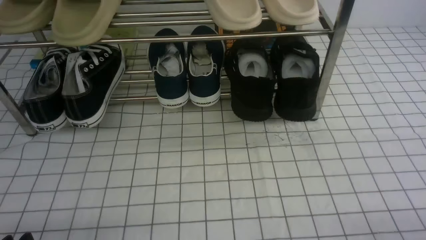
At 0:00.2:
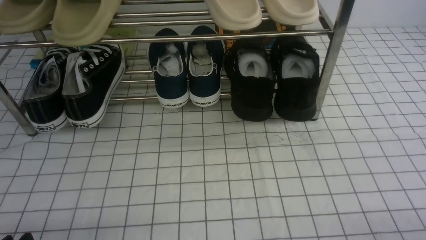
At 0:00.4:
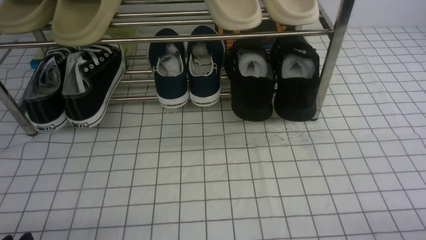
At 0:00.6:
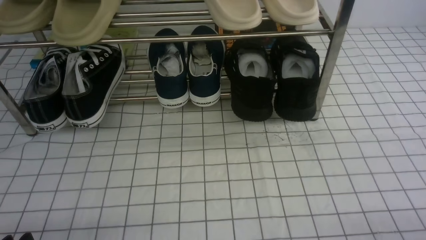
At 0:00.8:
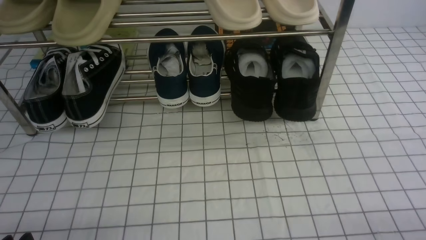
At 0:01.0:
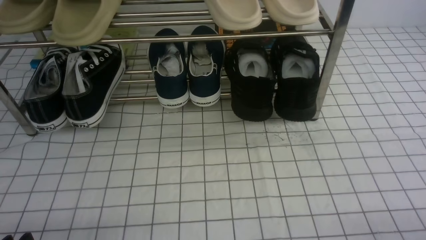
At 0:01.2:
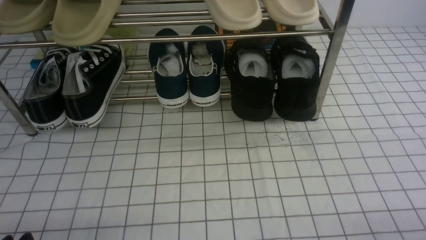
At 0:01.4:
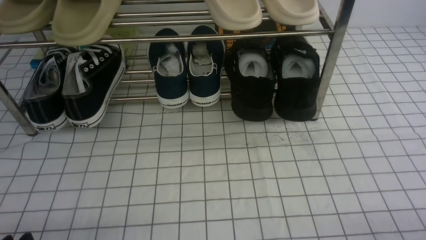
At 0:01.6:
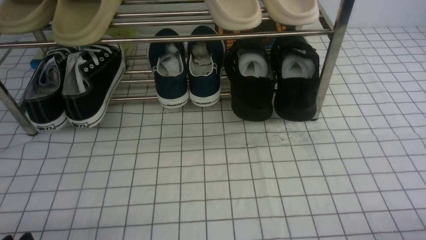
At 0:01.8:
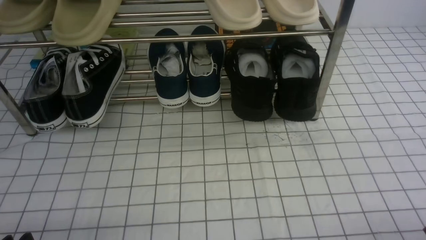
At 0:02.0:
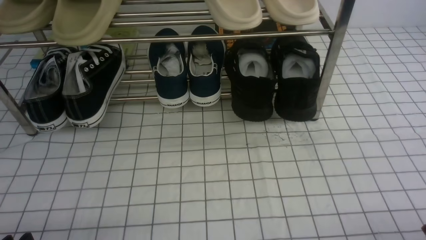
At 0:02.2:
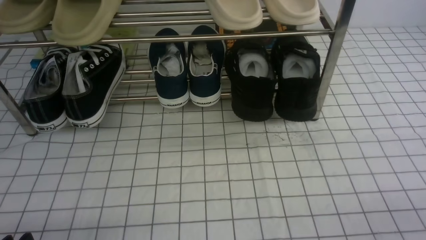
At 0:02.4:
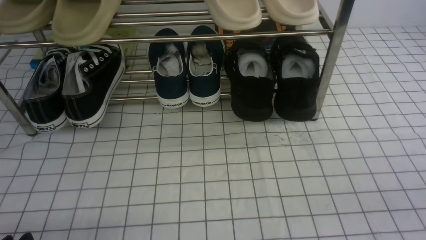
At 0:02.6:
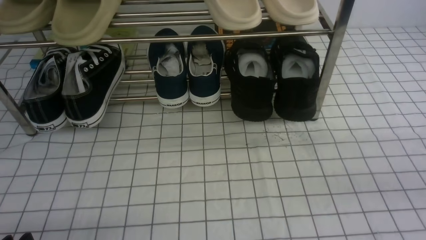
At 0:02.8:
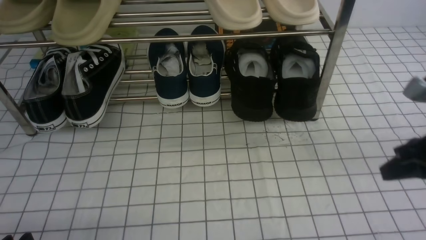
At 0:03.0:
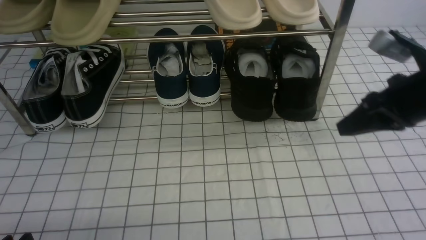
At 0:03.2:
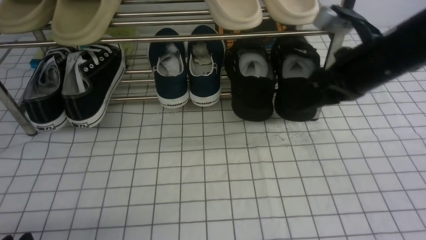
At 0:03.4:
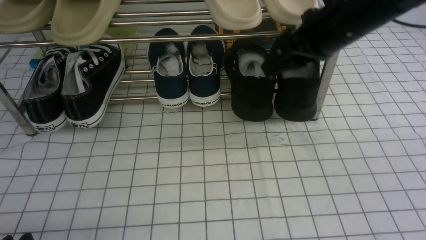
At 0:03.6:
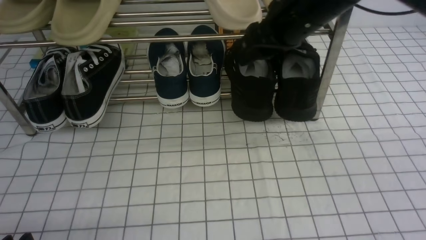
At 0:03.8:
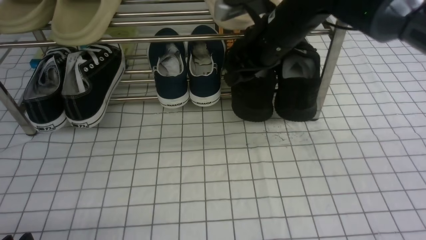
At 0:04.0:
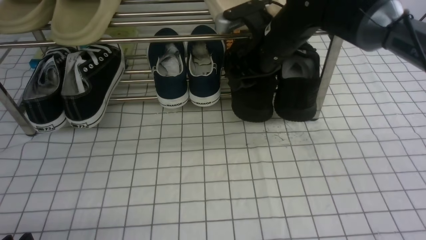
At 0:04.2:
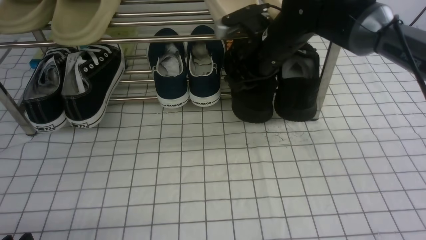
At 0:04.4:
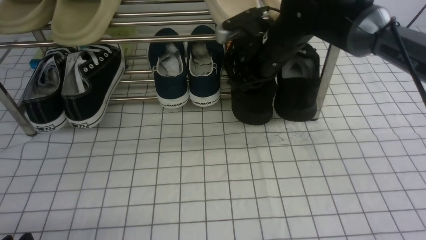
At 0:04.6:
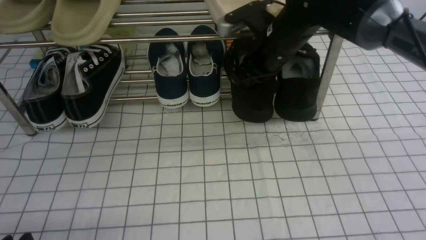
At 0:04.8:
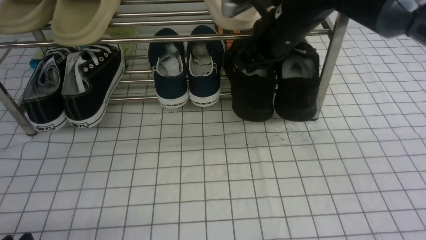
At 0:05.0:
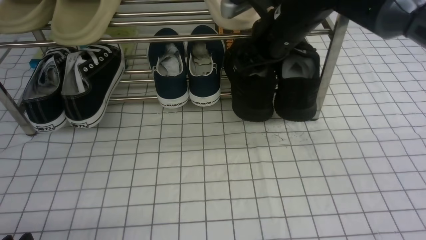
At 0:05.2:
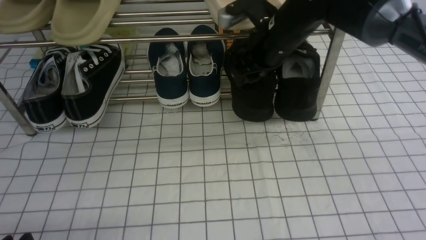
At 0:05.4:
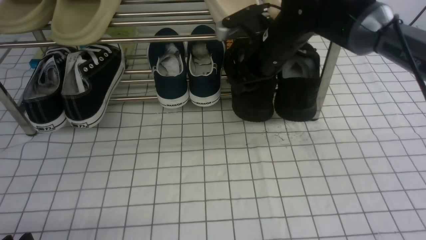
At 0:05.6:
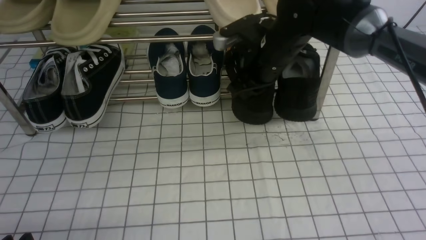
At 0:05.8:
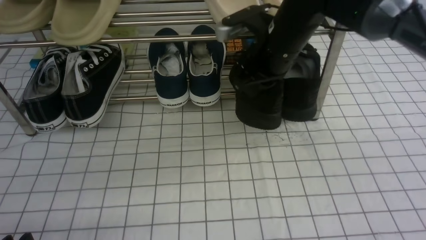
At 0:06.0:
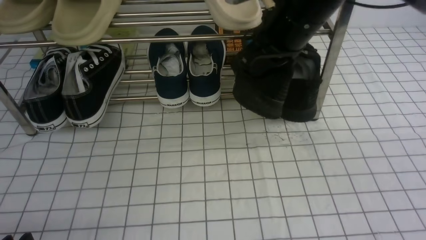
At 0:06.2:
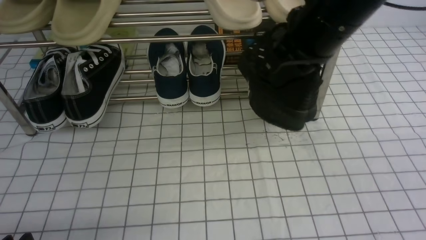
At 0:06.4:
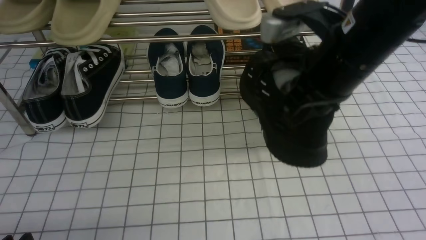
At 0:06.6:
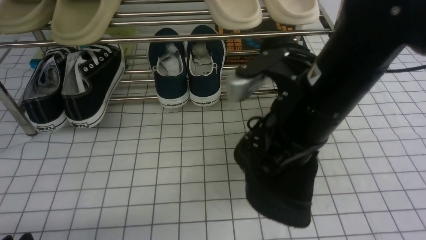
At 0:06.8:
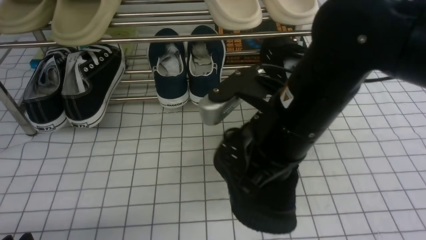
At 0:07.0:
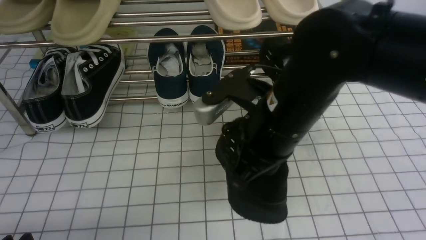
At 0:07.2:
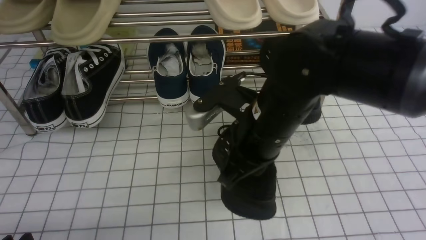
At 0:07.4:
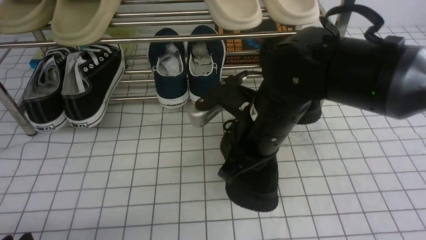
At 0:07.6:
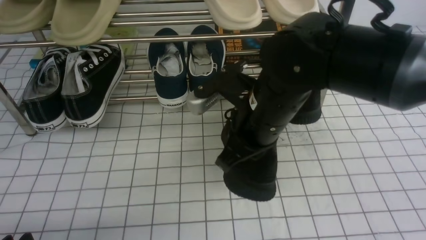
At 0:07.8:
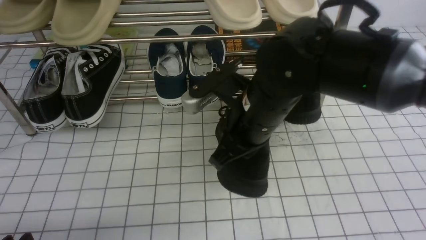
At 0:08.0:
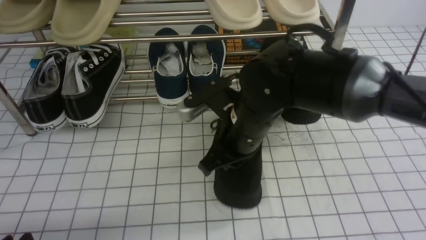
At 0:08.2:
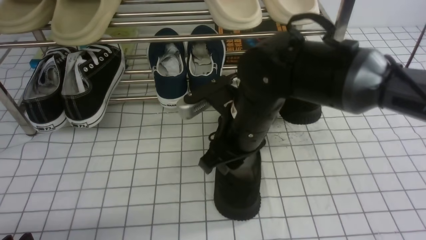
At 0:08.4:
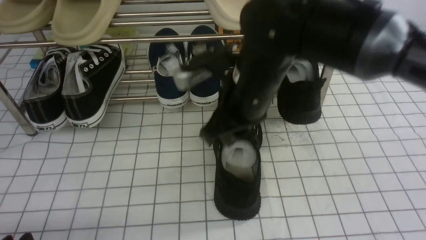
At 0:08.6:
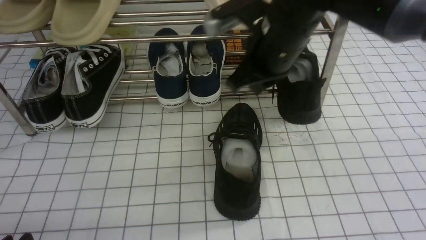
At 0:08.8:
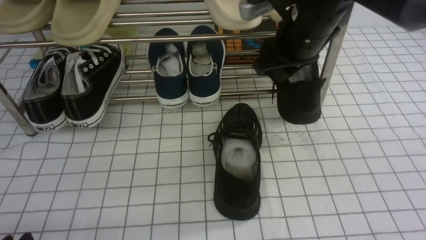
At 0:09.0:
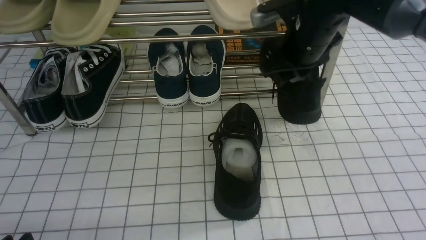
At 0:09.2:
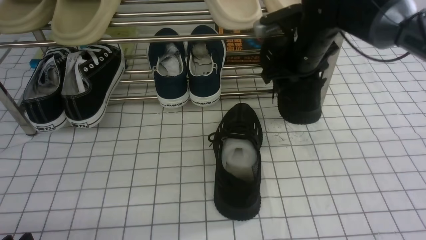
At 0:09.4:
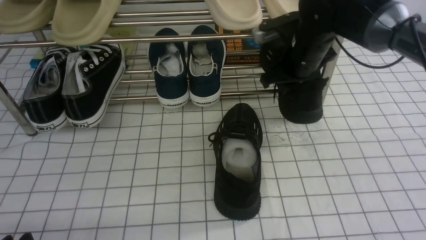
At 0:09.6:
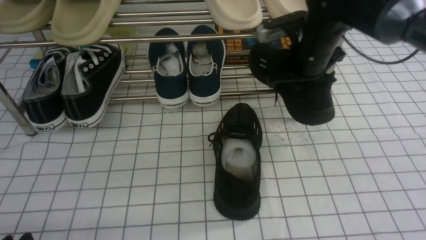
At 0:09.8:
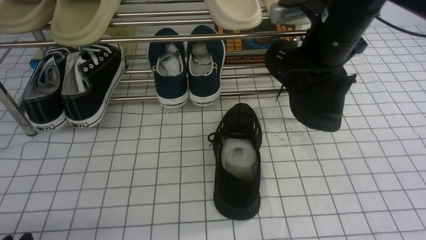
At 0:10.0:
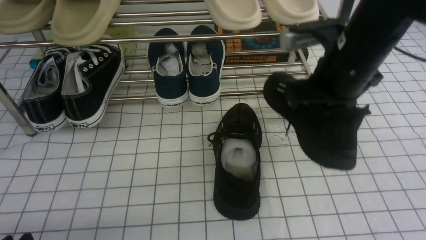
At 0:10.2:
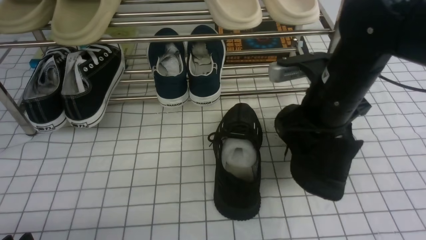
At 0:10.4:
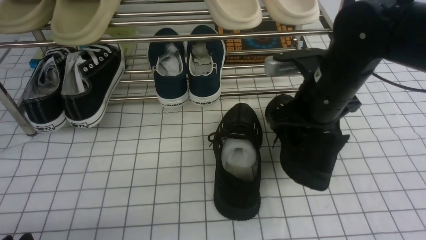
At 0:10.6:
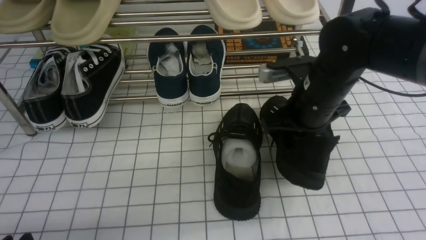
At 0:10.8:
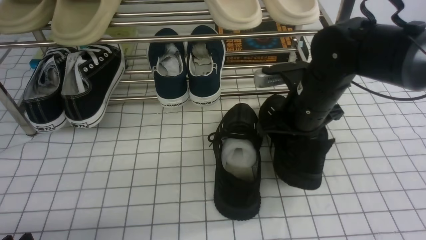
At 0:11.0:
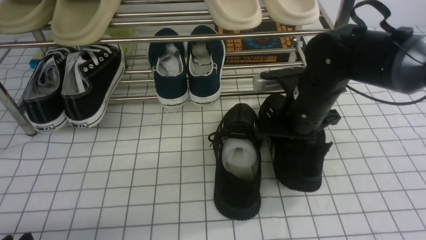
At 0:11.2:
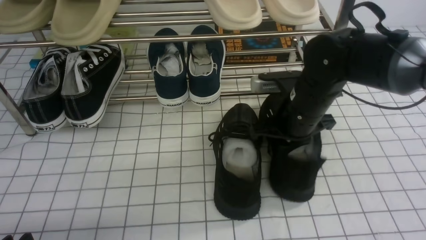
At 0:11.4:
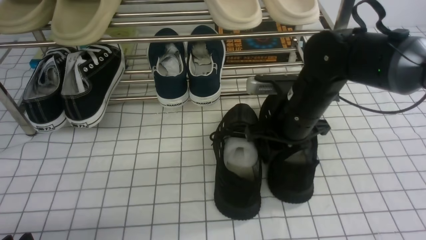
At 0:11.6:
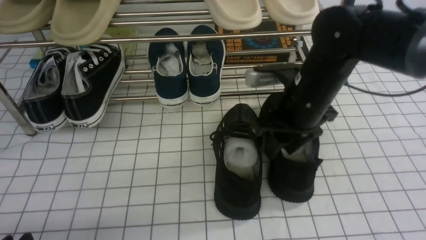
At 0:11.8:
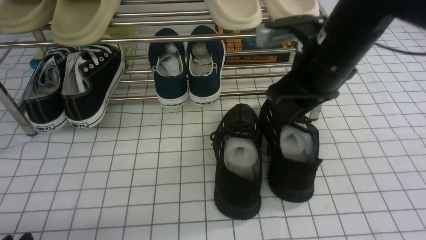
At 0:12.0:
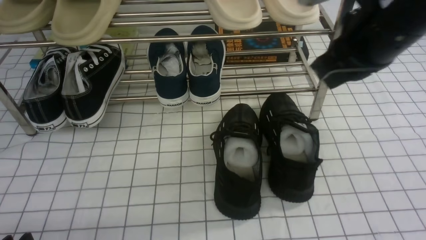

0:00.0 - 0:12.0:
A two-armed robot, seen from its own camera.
Step, 0:00.0 - 0:05.4: use the right arm to clamp a shoe on the right side of the shoe rack.
Step, 0:05.6 - 0:08.4: use the right arm to take out the clamped shoe from the shoe rack and put it down.
Step, 0:08.6 - 0:09.4: use the right arm to clamp a shoe on the right side of the shoe rack.
Step, 0:09.6 - 0:11.8: use the right arm to take out the clamped shoe from the shoe rack and put it down.
0:01.6 - 0:03.0: The right gripper shifts some 25 cm forward and upward, and closes, then opens again.
0:03.0 - 0:04.4: The right gripper moves to the left and forward, approximately 20 cm, and opens and closes again.
0:04.4 - 0:06.0: The right gripper moves upward and backward, roughly 10 cm, and opens, then closes once more.
0:06.0 - 0:07.6: The right gripper heads downward, backward and to the left, covering about 15 cm.
0:07.6 - 0:09.0: The right gripper goes some 15 cm forward and to the right, and opens up.
0:09.0 - 0:10.4: The right gripper is displaced backward by roughly 10 cm, and closes its fingers.
0:10.4 - 0:12.0: The right gripper travels upward and backward by roughly 15 cm, and opens and closes again.

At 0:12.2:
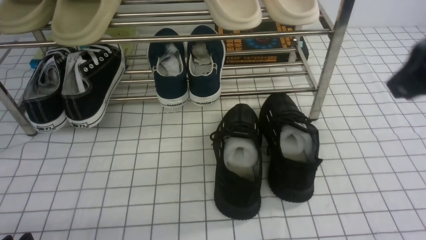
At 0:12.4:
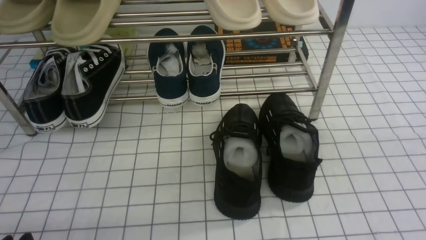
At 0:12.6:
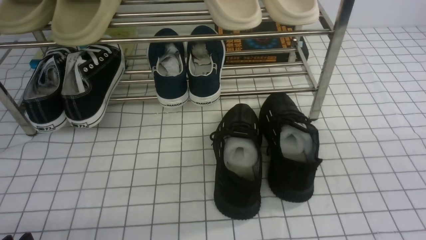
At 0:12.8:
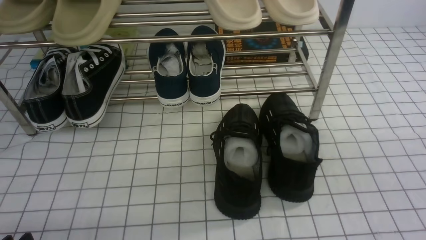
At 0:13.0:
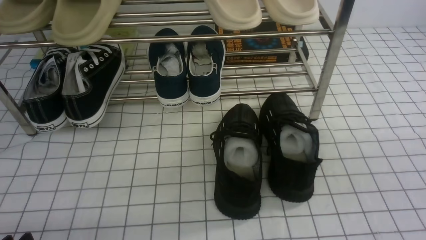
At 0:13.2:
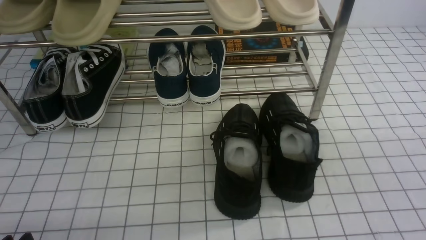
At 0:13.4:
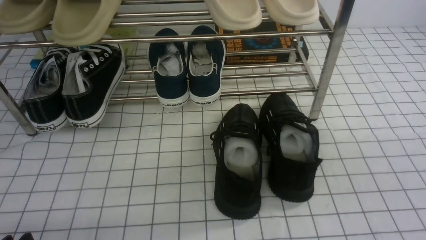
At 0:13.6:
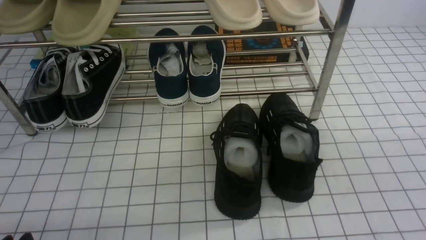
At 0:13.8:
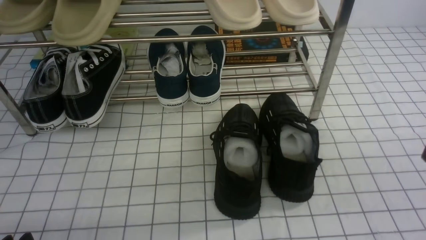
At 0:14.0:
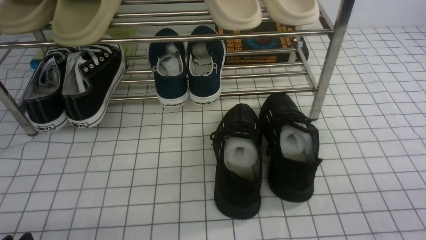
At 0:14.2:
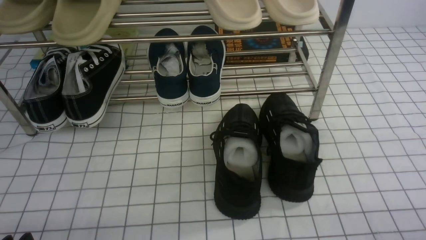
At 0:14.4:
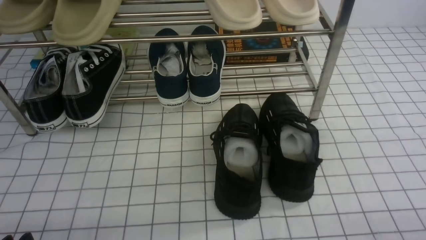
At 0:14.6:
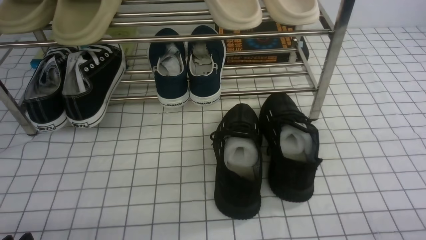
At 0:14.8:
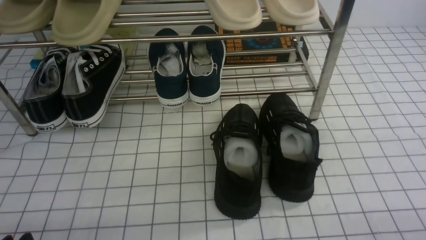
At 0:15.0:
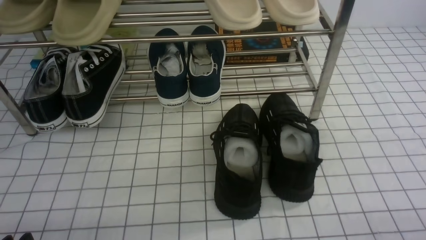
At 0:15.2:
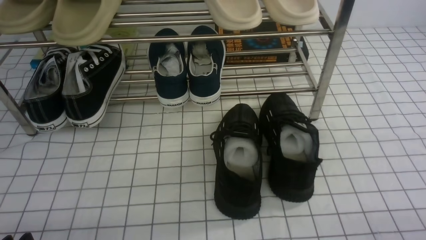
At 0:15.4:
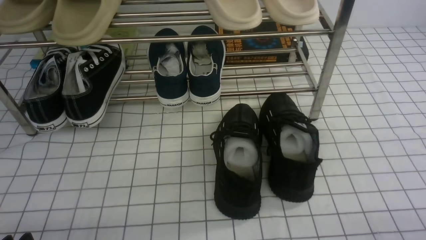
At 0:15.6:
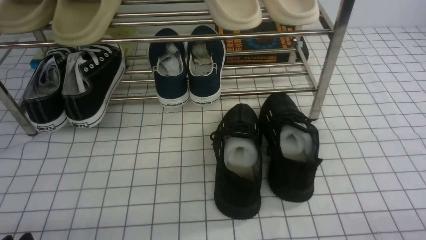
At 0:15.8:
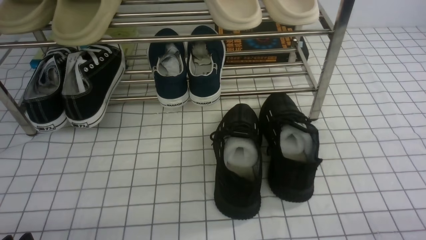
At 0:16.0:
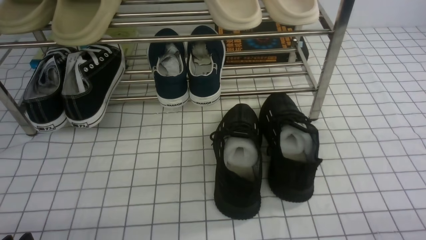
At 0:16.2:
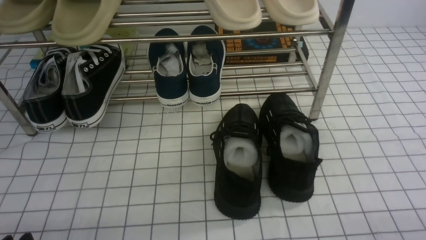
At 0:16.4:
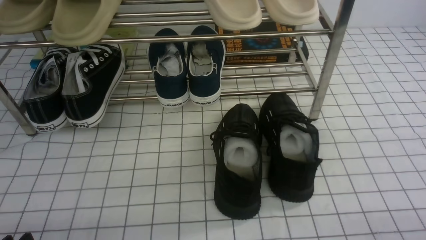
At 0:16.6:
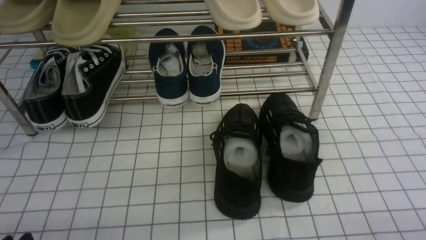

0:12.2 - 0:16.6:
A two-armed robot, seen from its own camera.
0:12.2 - 0:13.6: The right gripper travels downward, backward and to the right by roughly 15 cm.
0:15.2 - 0:16.6: Both grippers stay put.
